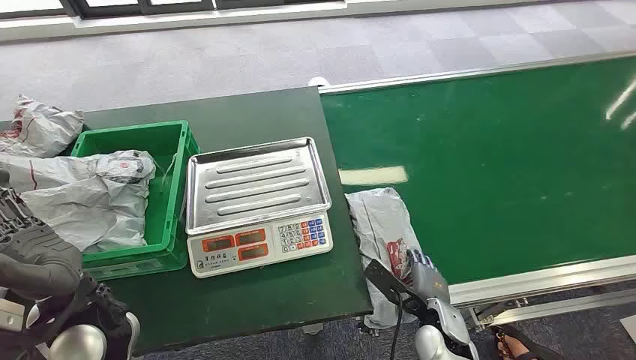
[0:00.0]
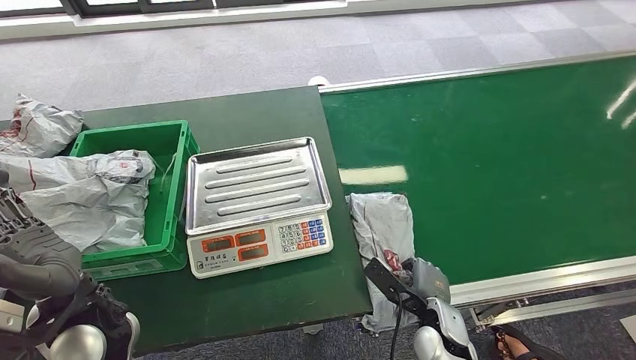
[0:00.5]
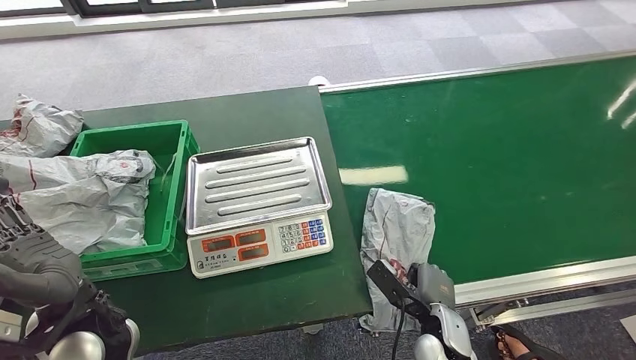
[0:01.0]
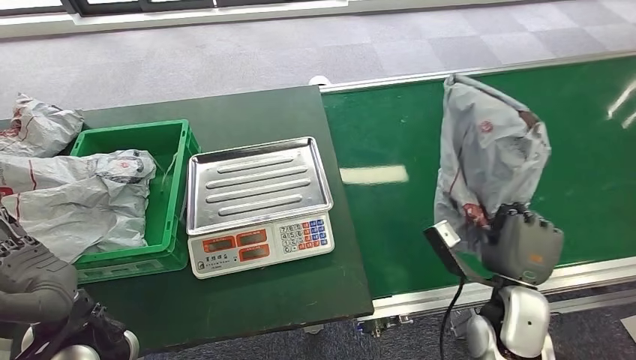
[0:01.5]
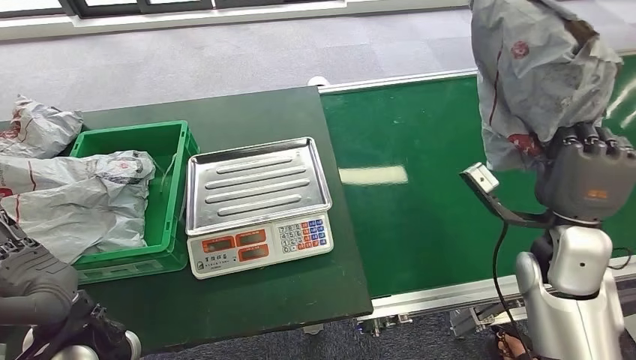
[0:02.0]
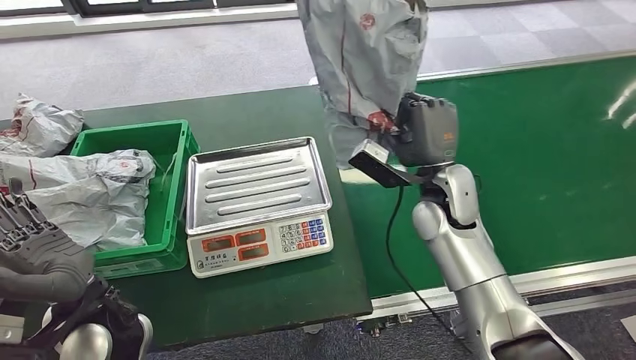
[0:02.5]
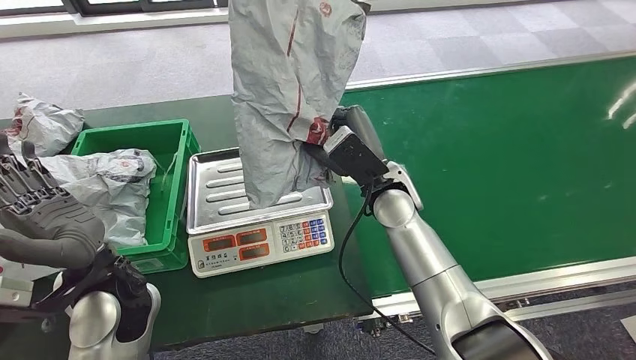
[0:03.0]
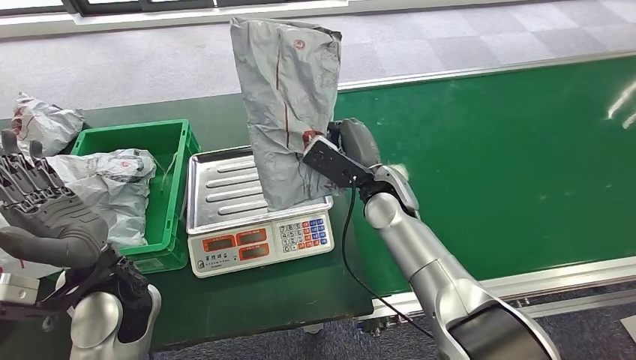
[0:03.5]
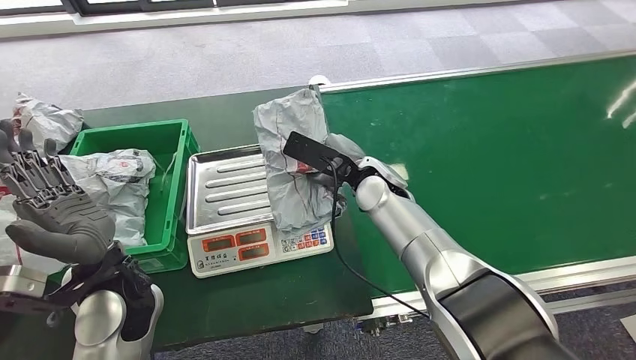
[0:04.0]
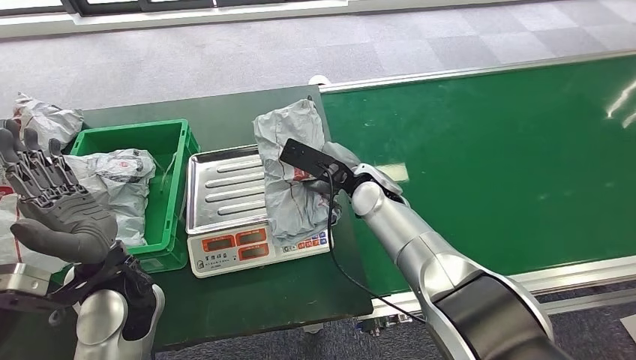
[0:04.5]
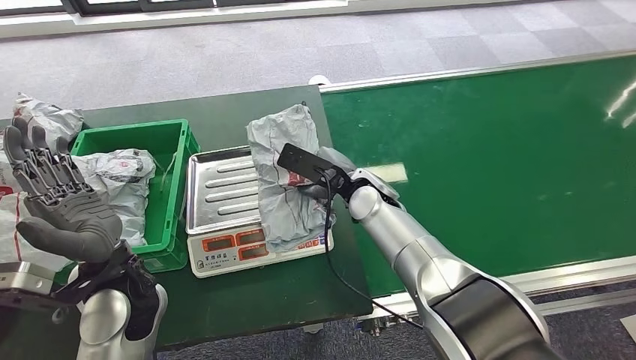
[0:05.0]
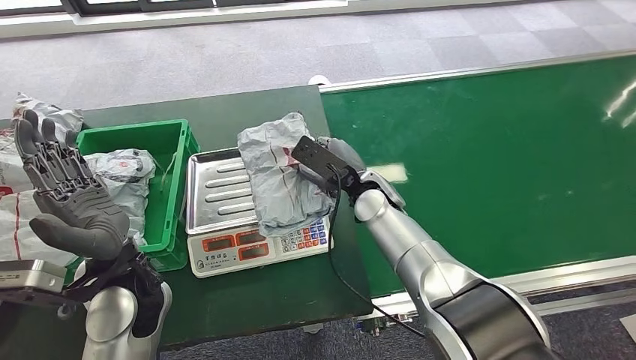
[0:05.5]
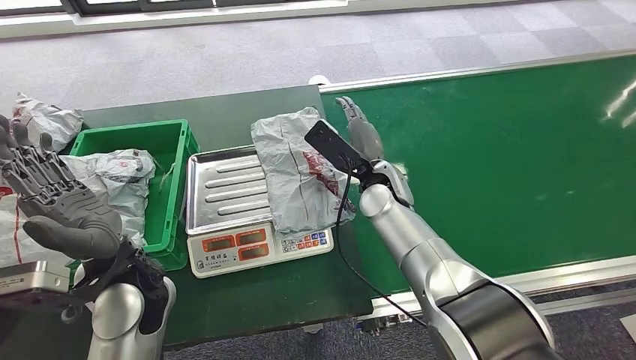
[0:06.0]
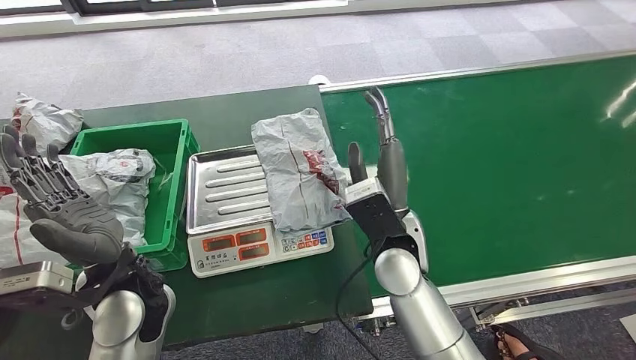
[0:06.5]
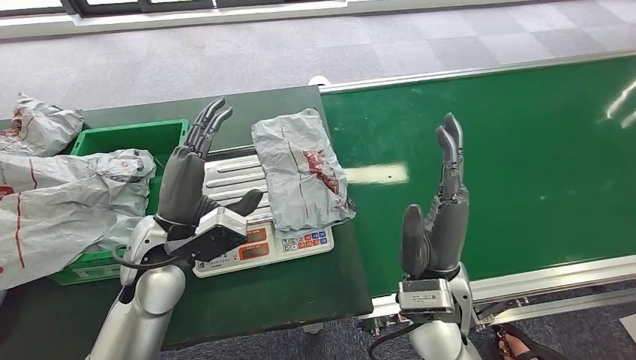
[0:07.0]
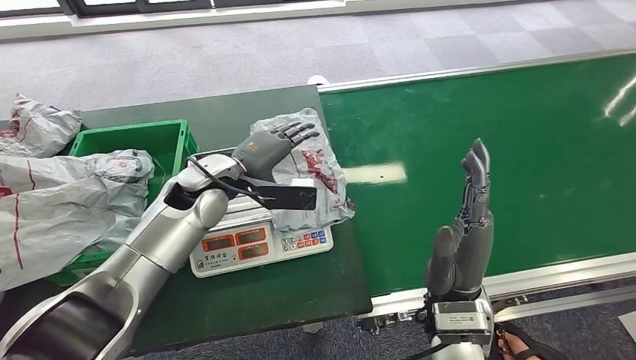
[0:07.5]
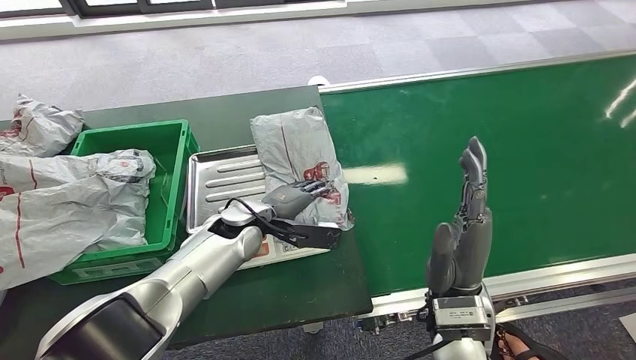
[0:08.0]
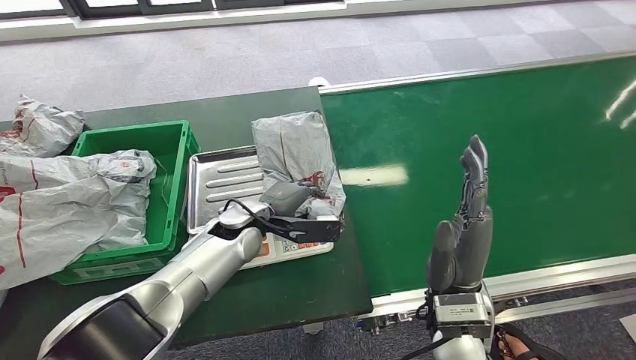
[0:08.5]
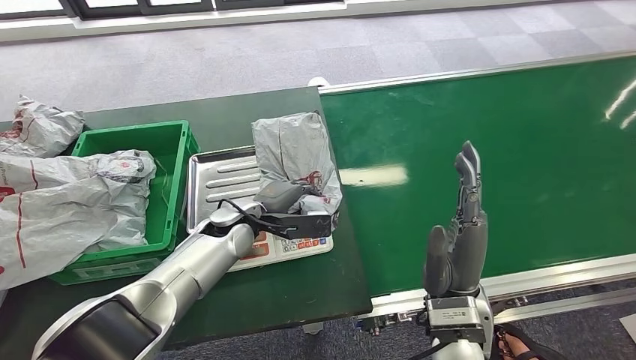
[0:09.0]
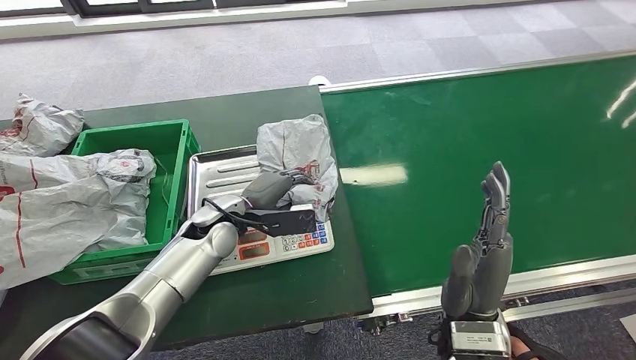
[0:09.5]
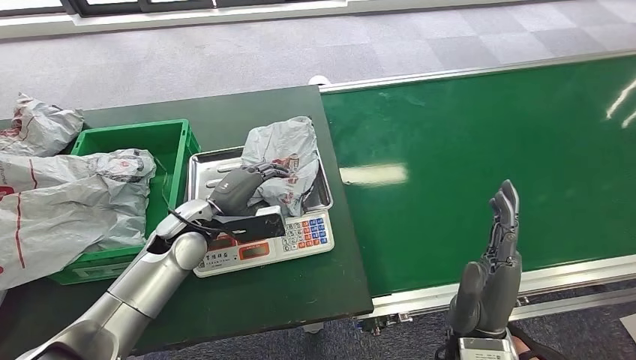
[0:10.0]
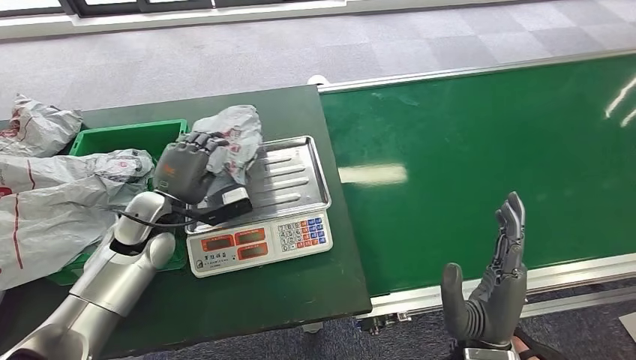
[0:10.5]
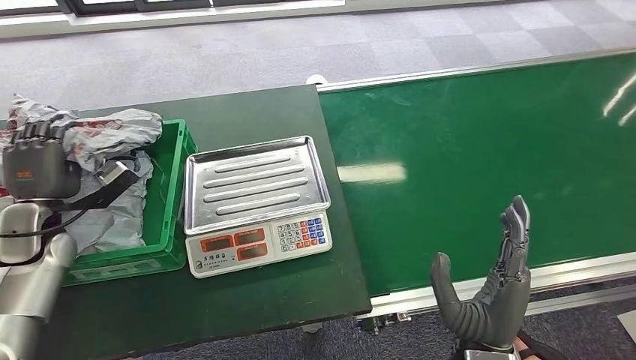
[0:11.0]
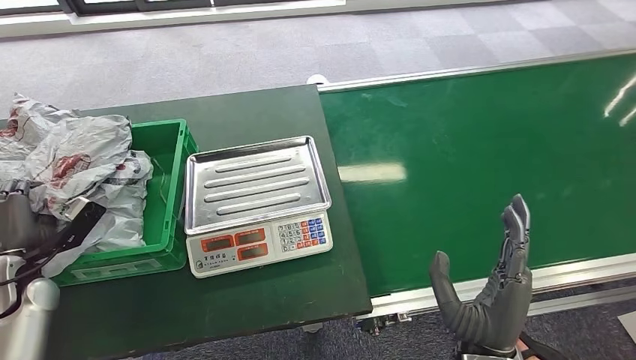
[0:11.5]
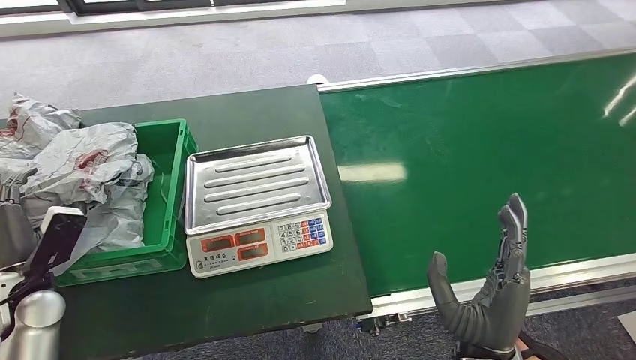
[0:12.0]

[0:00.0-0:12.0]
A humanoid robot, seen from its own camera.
Task of the whole recording: Weigh the package on the weighing device and place it in the left basket.
Step, 0:00.0 to 0:01.5: Pick up the package from the conveyor belt.
Step, 0:02.0 to 0:06.5: Place the package onto the inbound machine.
Step, 0:07.0 to 0:10.0: Pick up the package from the inbound machine.
Step, 0:10.5 to 0:12.0: Place the package into the parcel locker.
0:08.0 to 0:10.0: The right hand moves backward, some 5 cm. The left hand heads to the left, covering approximately 10 cm.
